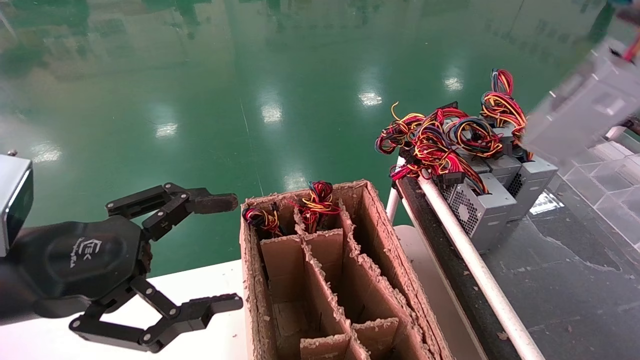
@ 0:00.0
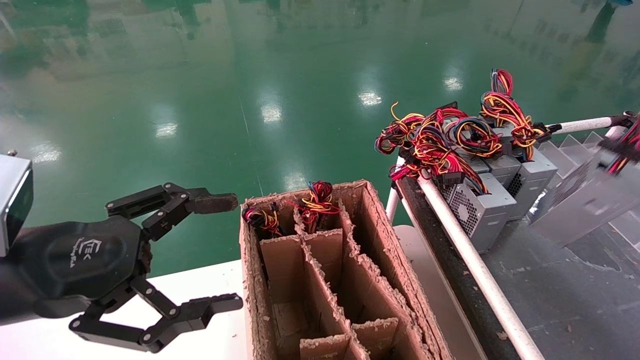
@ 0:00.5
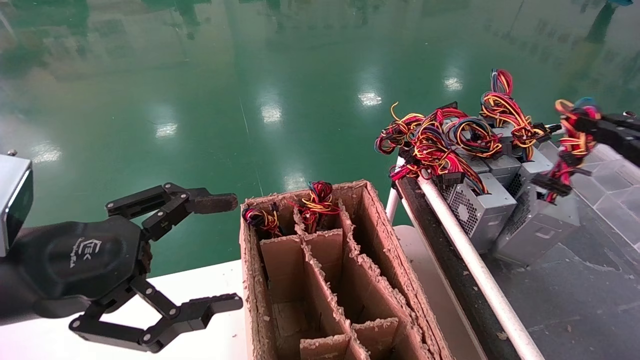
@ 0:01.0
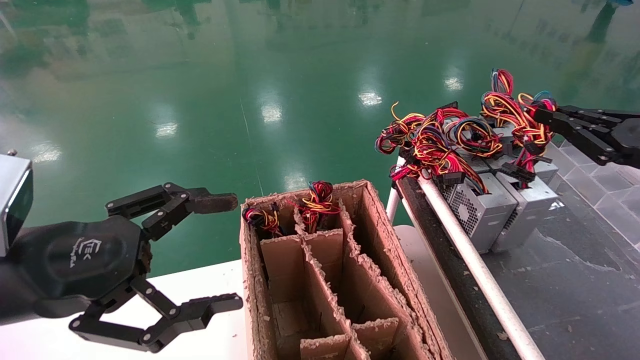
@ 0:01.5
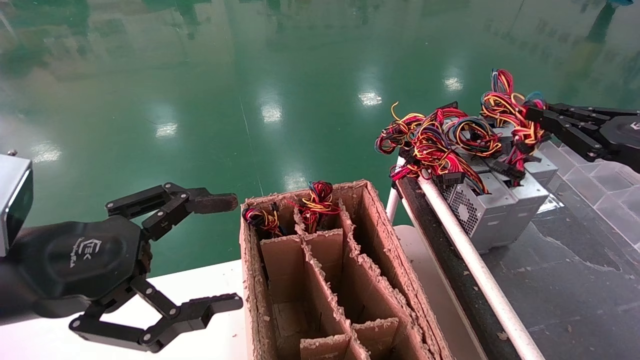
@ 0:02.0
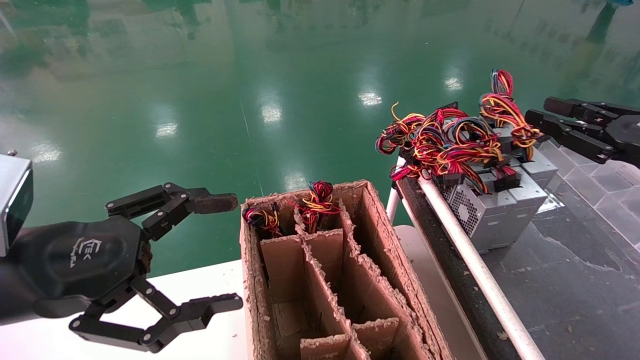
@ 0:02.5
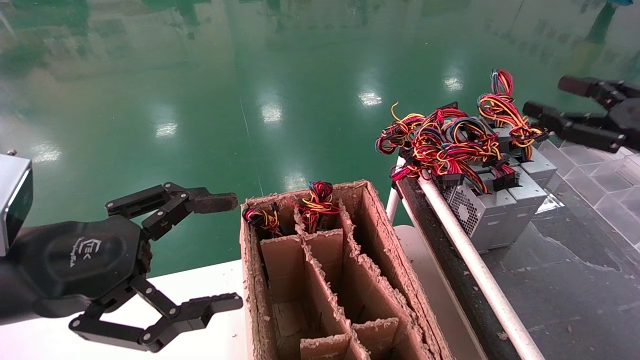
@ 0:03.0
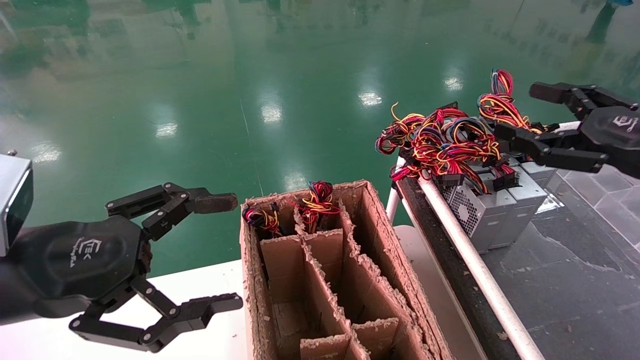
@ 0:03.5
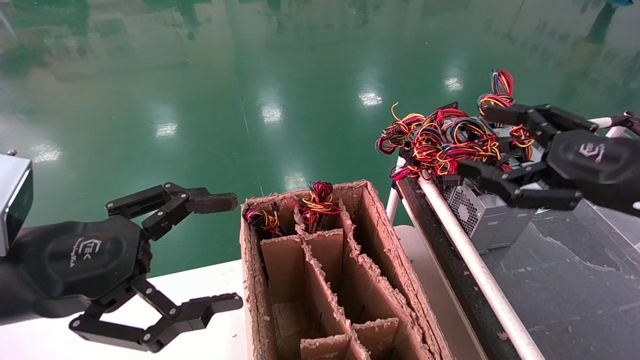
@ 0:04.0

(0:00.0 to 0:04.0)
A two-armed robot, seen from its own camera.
Step, 0:00.0 - 0:02.0: Place the power supply on the operating table.
0:00.0 - 0:02.0: The right gripper is displaced downward and forward by approximately 15 cm.
0:02.0 - 0:04.0: The right gripper goes about 10 cm to the left, and opens its fingers.
